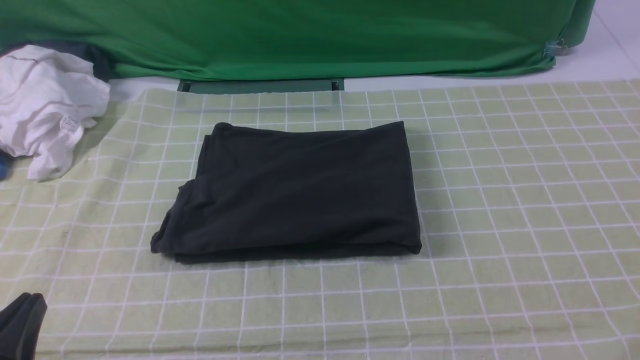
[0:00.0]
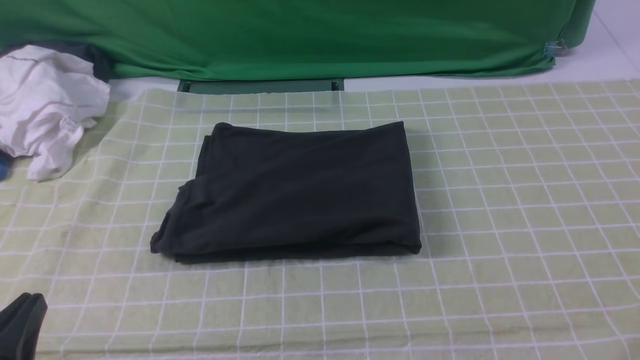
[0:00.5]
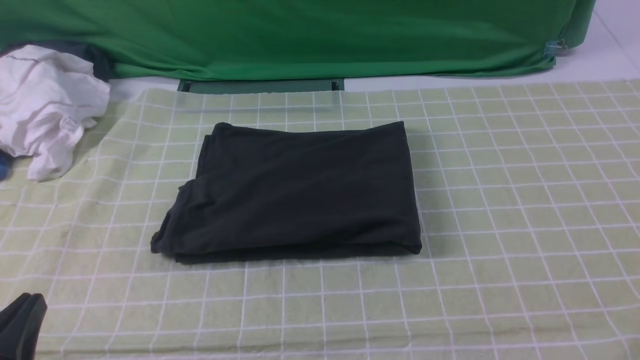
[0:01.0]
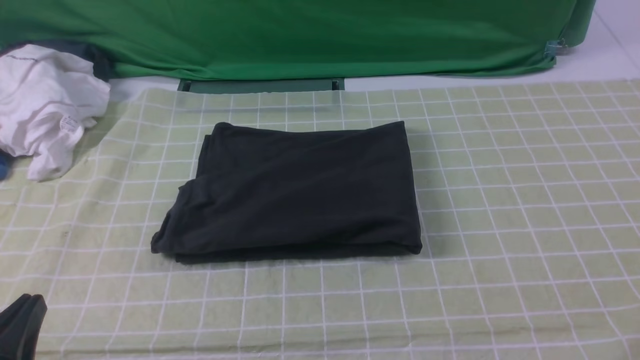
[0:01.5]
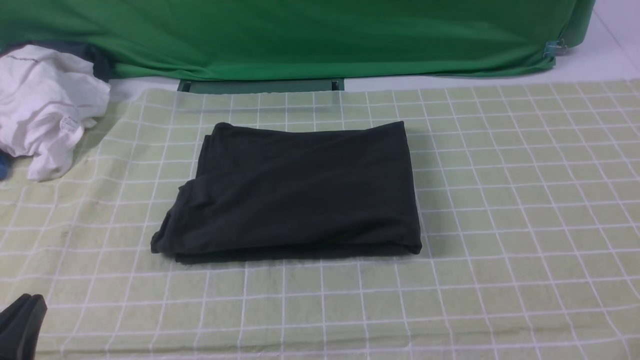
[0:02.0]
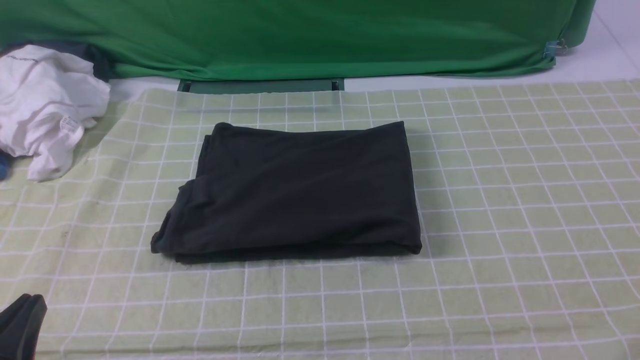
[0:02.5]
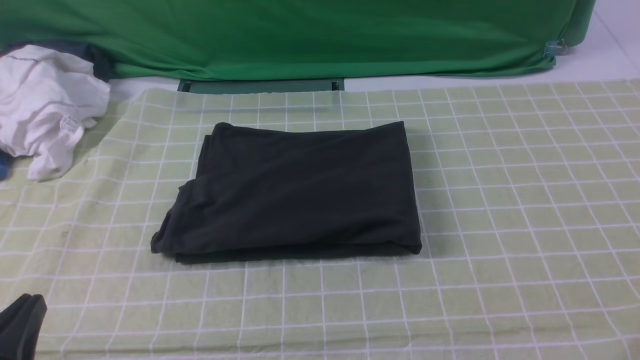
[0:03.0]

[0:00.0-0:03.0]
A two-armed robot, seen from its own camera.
0:01.5 to 0:03.0: Both grippers stay put.

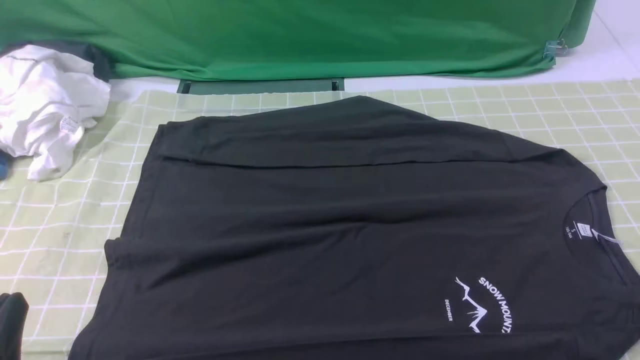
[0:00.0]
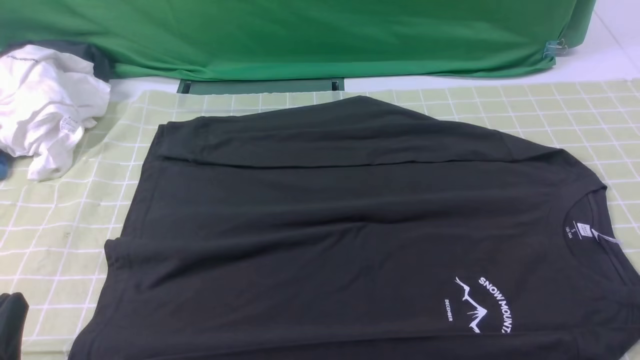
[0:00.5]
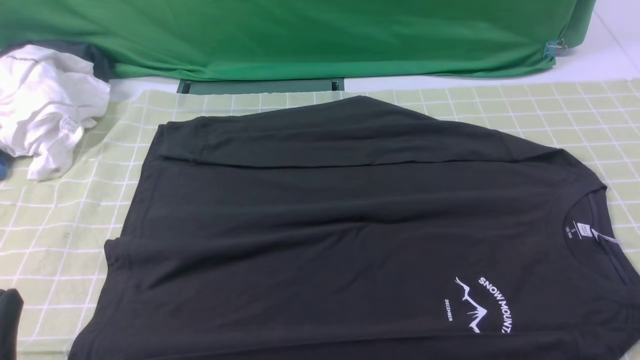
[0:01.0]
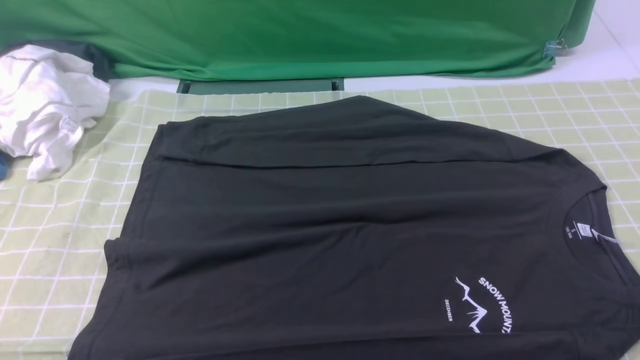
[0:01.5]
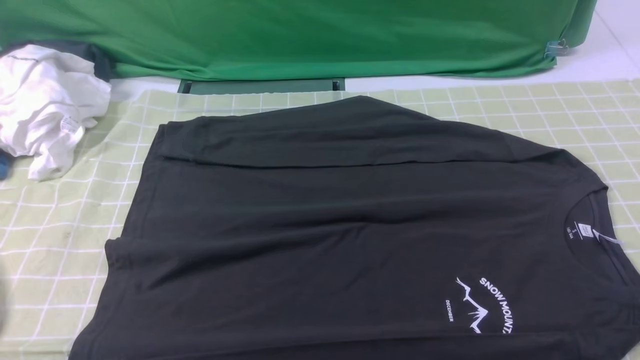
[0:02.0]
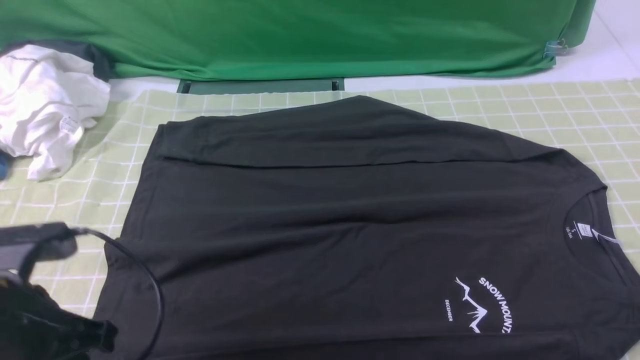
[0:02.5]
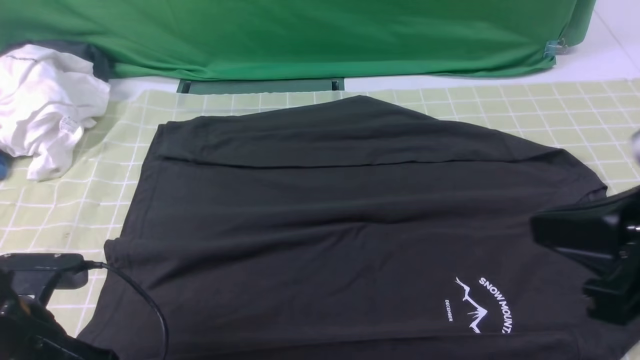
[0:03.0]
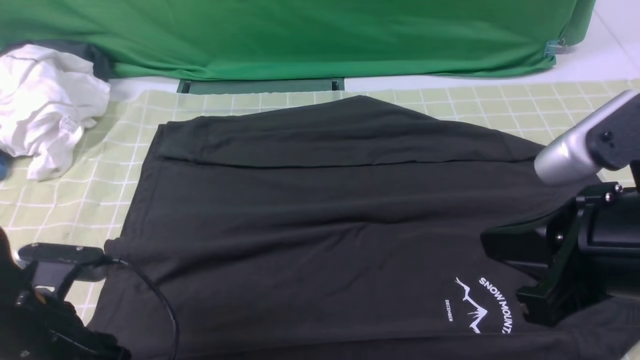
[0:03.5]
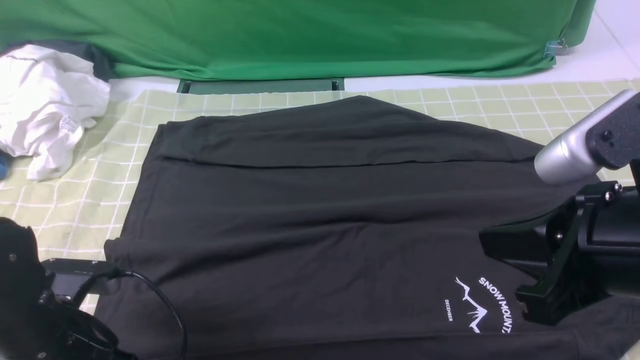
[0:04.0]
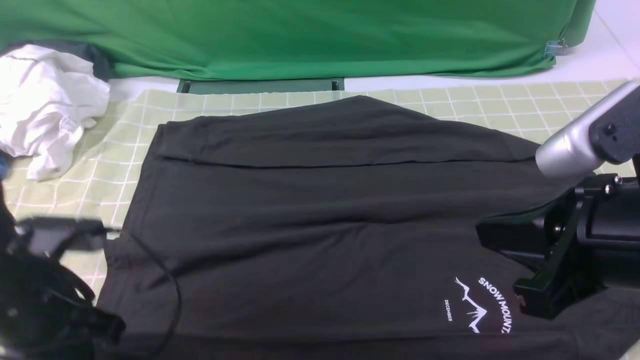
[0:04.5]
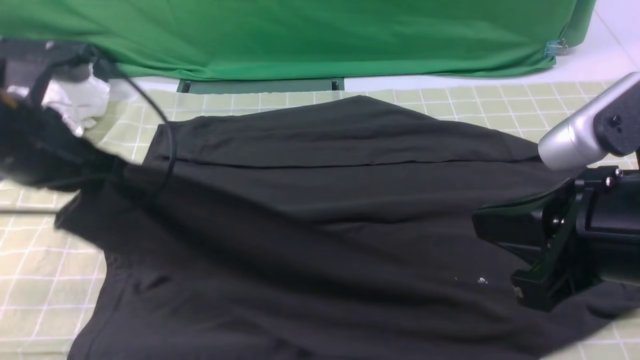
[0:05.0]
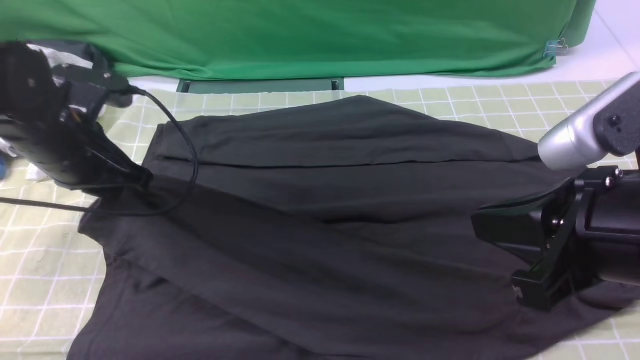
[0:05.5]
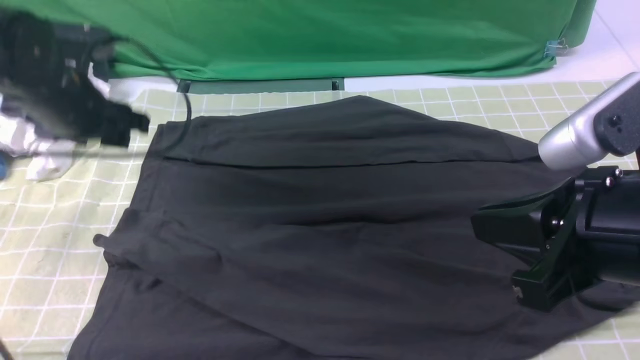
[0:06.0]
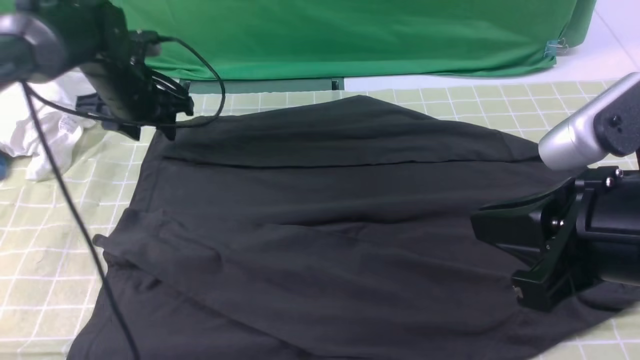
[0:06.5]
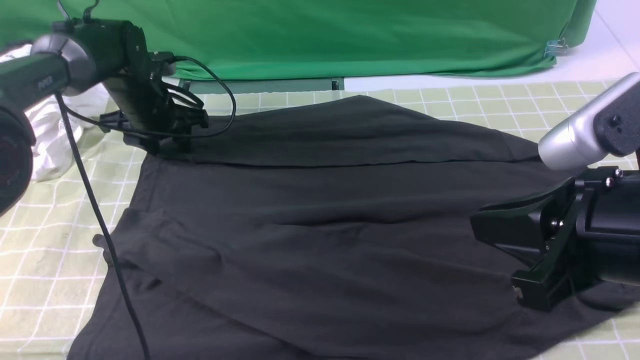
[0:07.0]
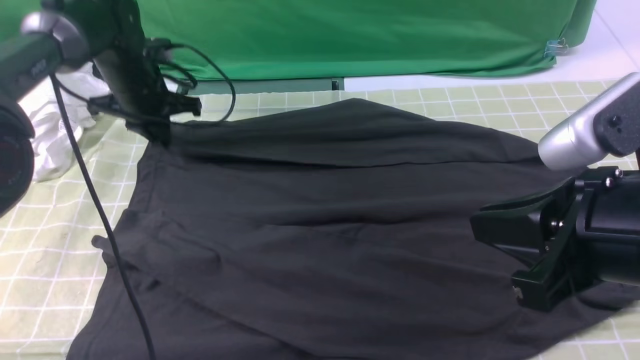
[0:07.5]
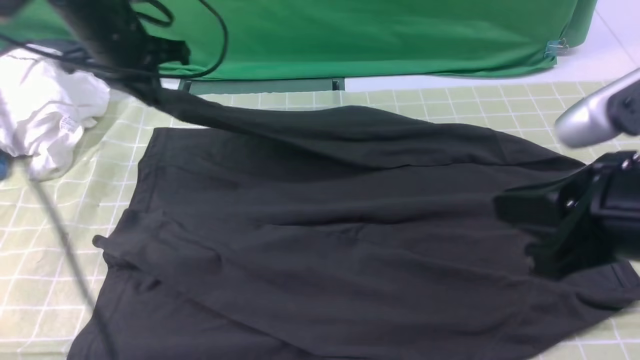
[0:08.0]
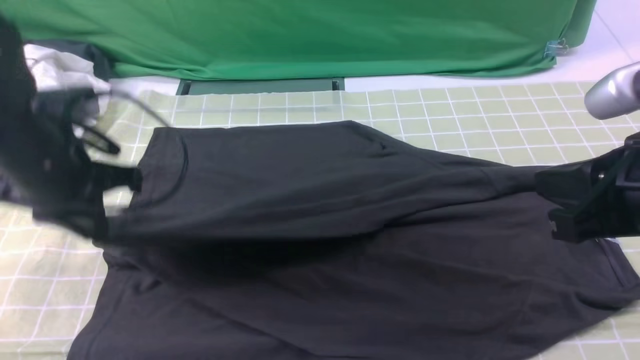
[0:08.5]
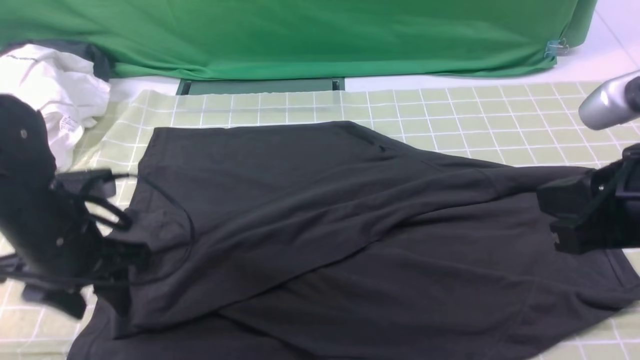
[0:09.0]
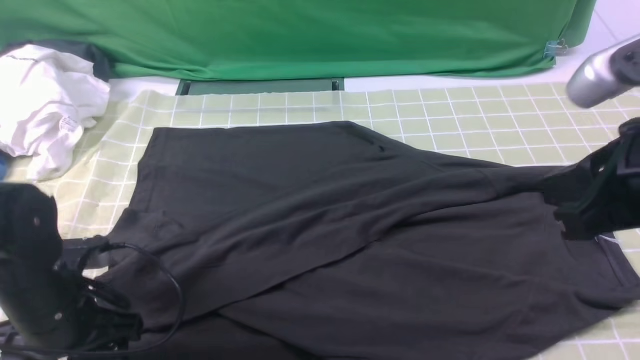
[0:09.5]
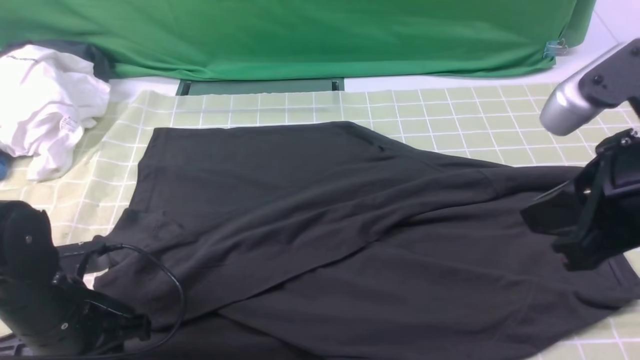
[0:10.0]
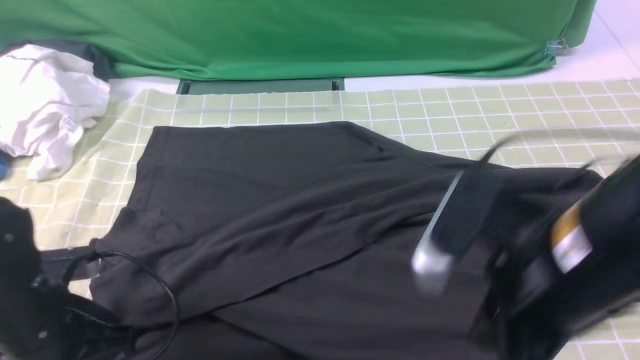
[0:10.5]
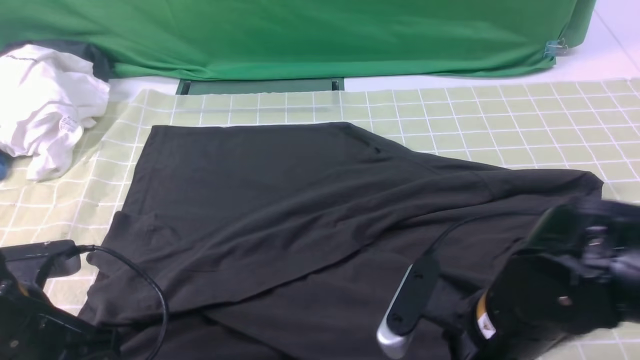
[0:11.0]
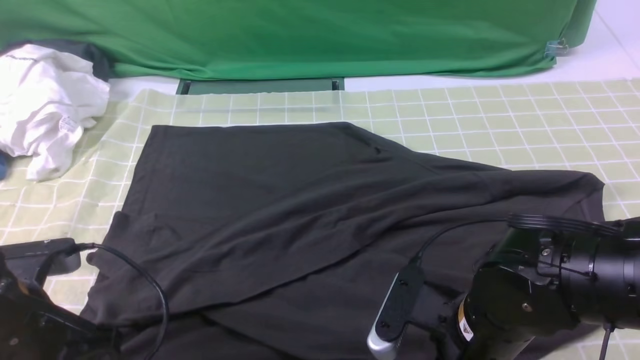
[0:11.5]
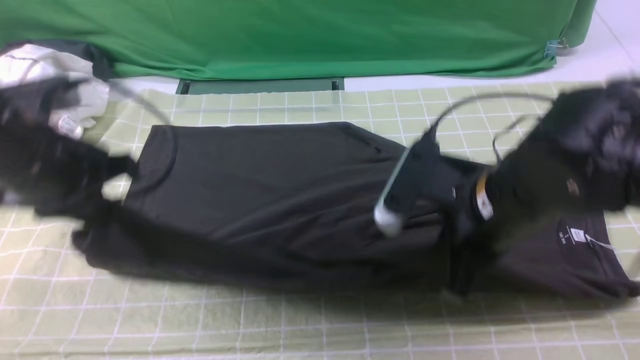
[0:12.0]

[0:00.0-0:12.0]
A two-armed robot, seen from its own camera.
Step, 0:00.0 to 0:04.0: use the left arm to clamp the cuff closest to it.
Step, 0:04.5 to 0:05.5: use the left arm to drag and place the cuff at the centered position on the left edge of the fabric.
Step, 0:06.0 to 0:07.0: use the left arm to clamp the cuff farthest from it.
Step, 0:07.5 to 0:09.0: use the left arm to drag and drop the cuff onto the cuff closest to the left arm.
Step, 0:09.5 to 0:11.5: use both arms simultaneously to clamp the lower edge of the clothing fabric.
0:00.0 to 0:02.0: The left gripper shifts roughly 10 cm upward.
0:02.0 to 0:04.0: The right gripper goes roughly 20 cm to the left, forward and upward. Meanwhile the left gripper moves downward and forward, about 15 cm, and opens up.
0:04.0 to 0:06.0: The left gripper is displaced forward and upward by roughly 20 cm, and opens up.
0:06.0 to 0:08.0: The left gripper is displaced forward by about 5 cm, reaches roughly 10 cm downward, then returns, and closes up.
0:08.0 to 0:10.0: The left gripper moves backward and downward, roughly 25 cm, and opens its fingers.
0:10.0 to 0:12.0: The right gripper goes some 15 cm downward, to the left and forward, and opens, then closes again. Meanwhile the left gripper moves upward and forward, some 15 cm, and closes up.

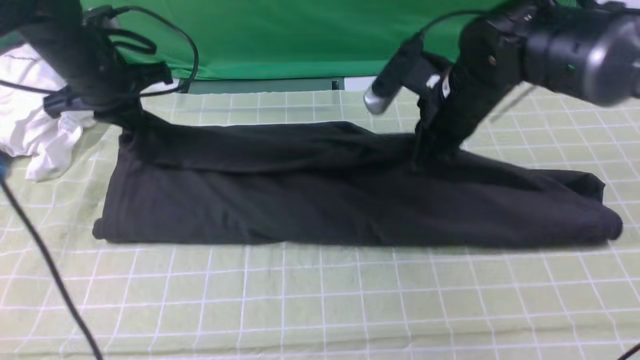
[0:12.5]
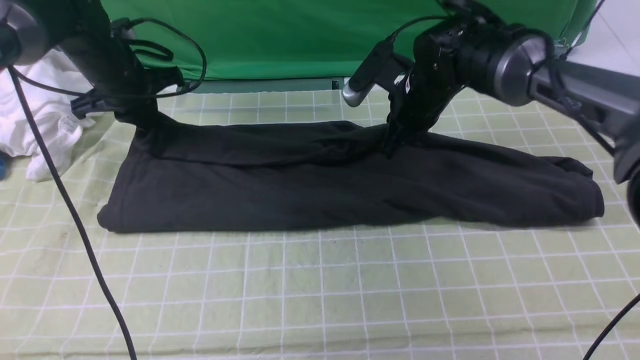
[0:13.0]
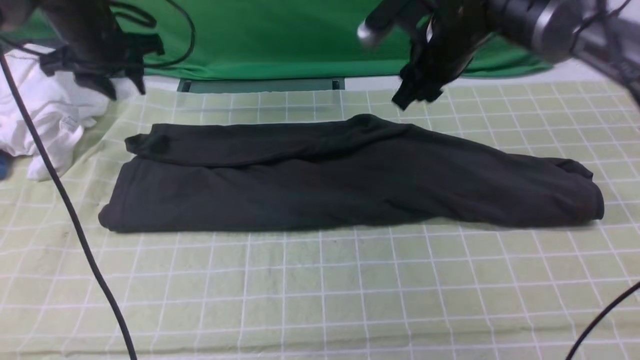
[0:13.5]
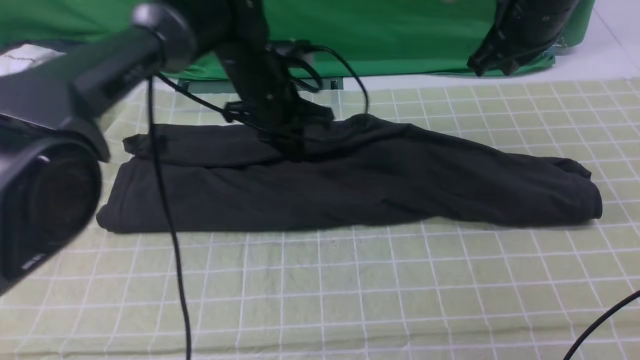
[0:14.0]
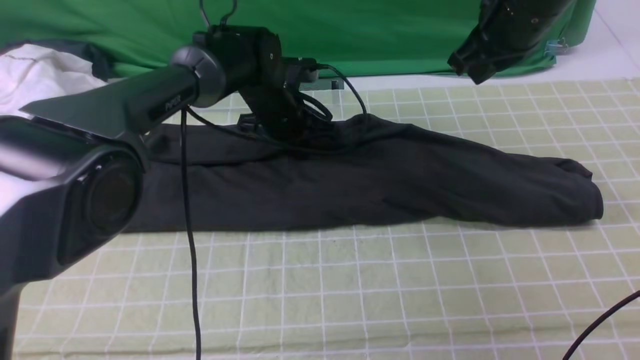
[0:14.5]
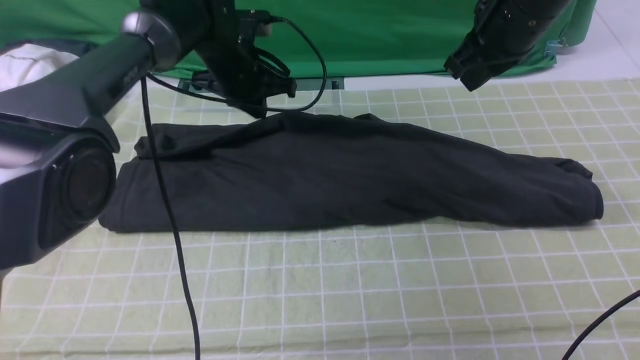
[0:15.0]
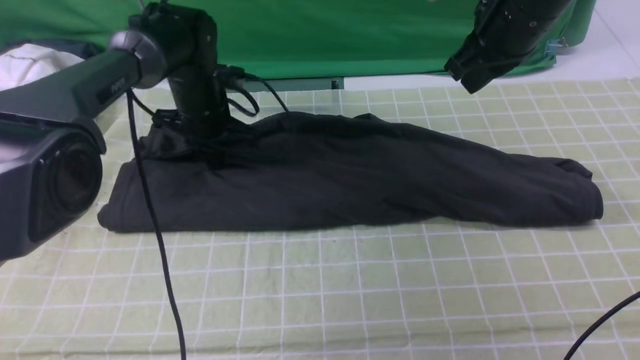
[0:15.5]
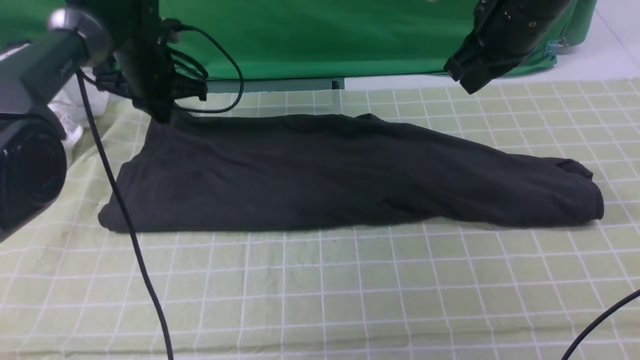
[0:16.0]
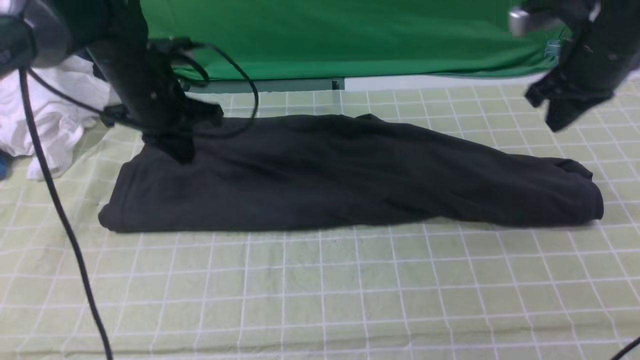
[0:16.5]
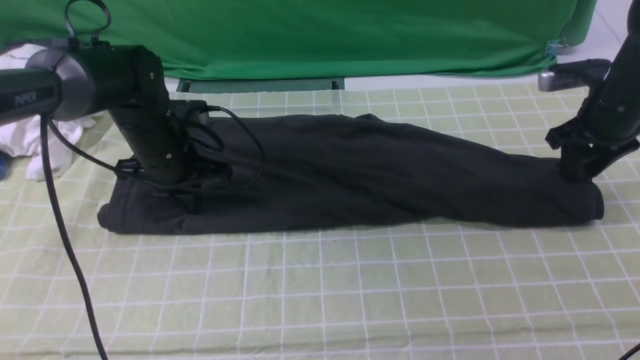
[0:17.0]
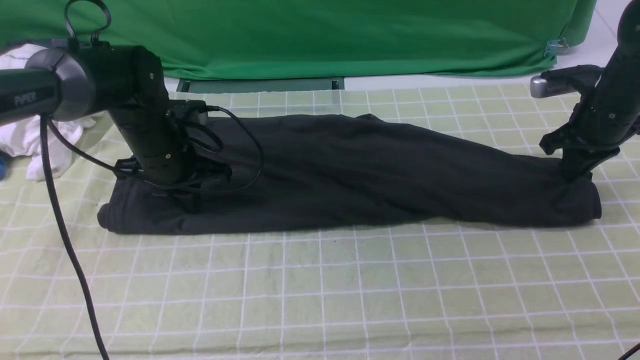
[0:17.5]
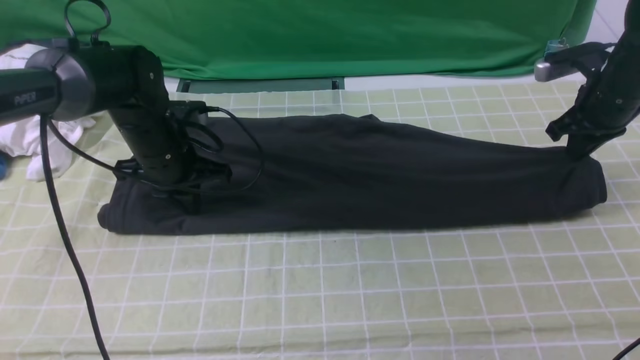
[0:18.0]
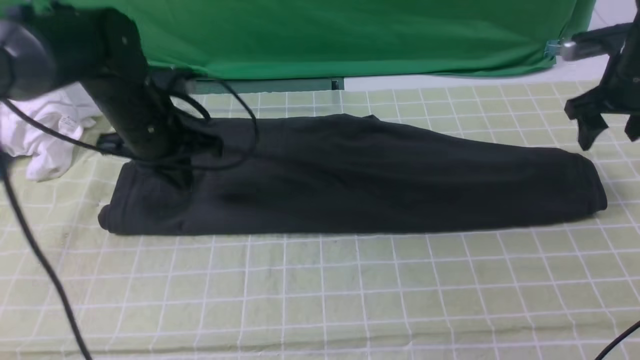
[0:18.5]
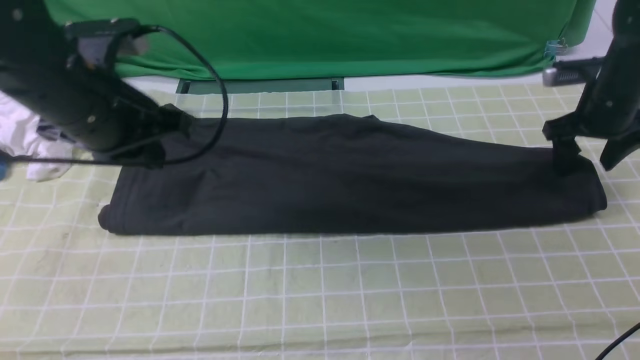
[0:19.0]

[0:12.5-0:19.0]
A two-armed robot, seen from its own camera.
Step, 0:12.5 to 0:15.5: use both arms to drag the lower edge of the fabric forward and fold it over the upper edge.
0:12.5 to 0:14.5: The left gripper shifts about 20 cm to the right and downward, and opens, then closes once more. Meanwhile the right gripper shifts some 10 cm upward and to the right, and opens and closes again.
0:14.5 to 0:17.0: The left gripper travels to the left and backward by about 15 cm; the right gripper is displaced to the right and downward by roughly 20 cm, and opens.
0:17.0 to 0:19.0: The left gripper travels upward and backward by some 15 cm. The right gripper closes, then reopens.
